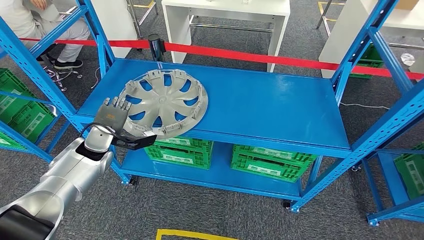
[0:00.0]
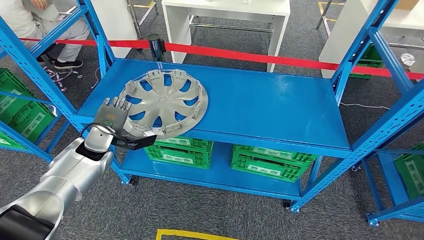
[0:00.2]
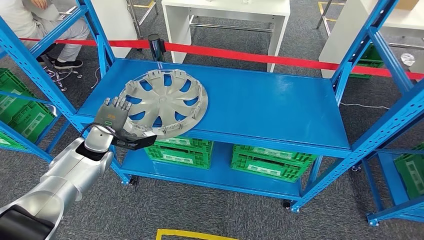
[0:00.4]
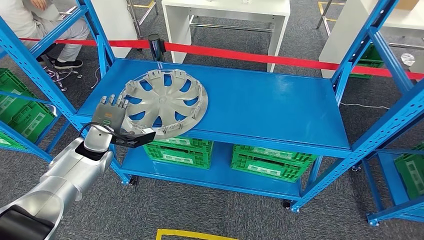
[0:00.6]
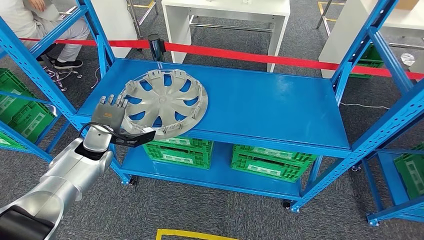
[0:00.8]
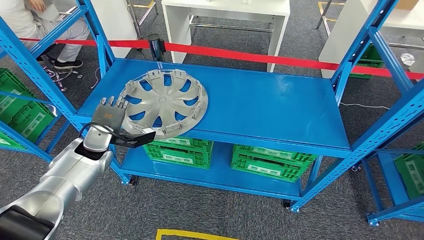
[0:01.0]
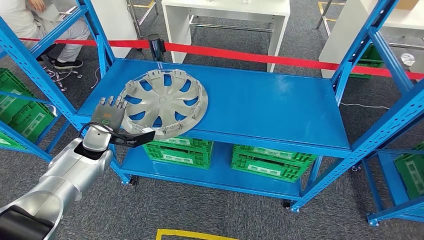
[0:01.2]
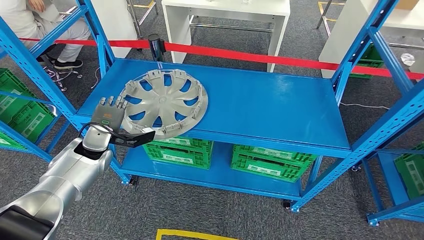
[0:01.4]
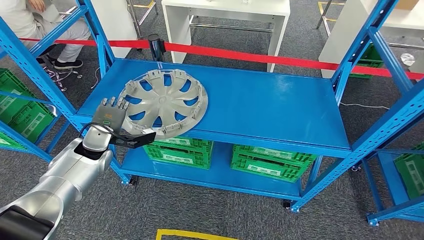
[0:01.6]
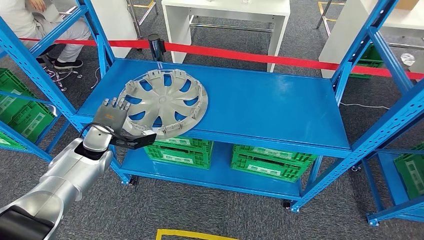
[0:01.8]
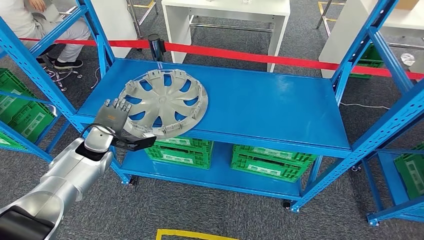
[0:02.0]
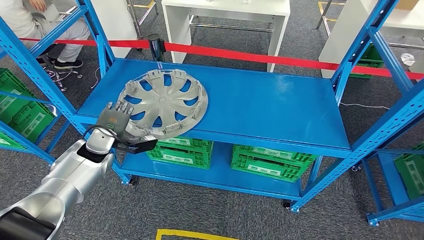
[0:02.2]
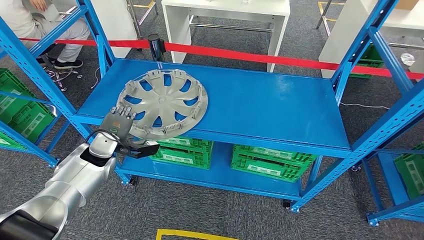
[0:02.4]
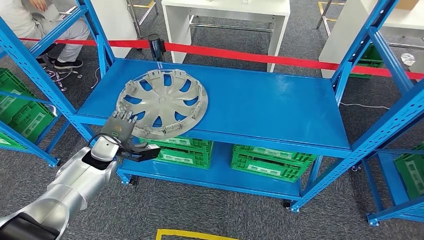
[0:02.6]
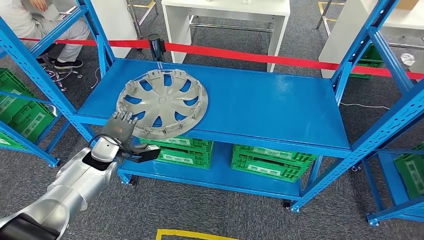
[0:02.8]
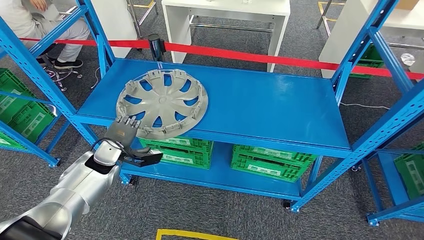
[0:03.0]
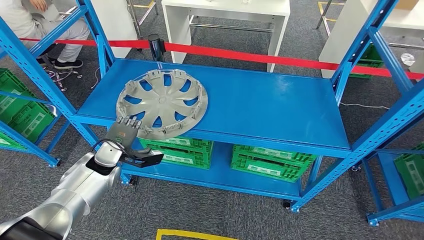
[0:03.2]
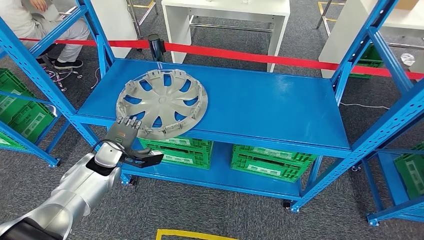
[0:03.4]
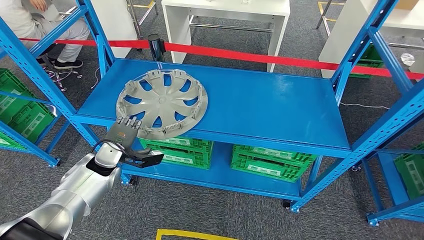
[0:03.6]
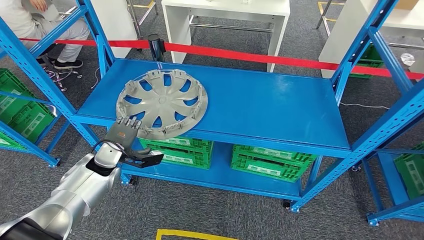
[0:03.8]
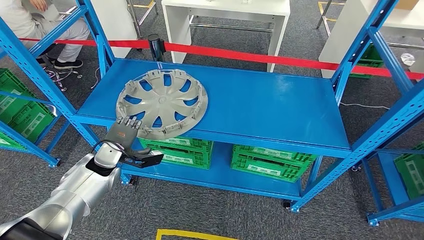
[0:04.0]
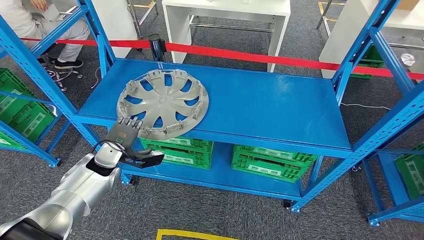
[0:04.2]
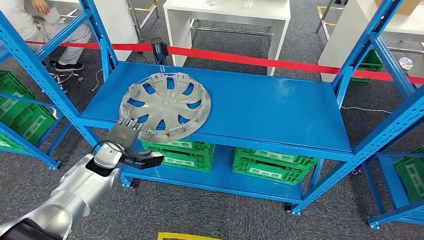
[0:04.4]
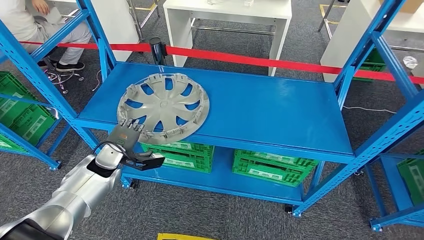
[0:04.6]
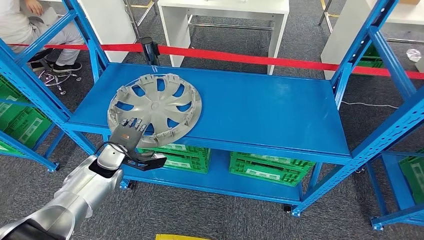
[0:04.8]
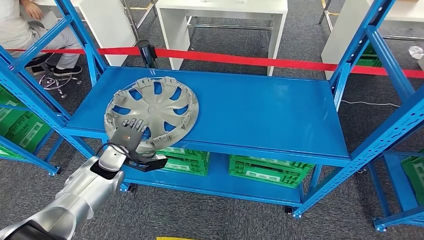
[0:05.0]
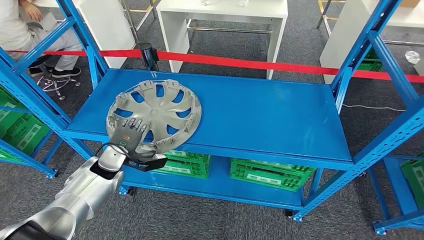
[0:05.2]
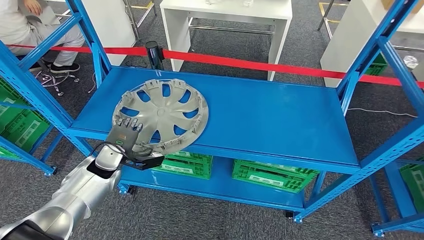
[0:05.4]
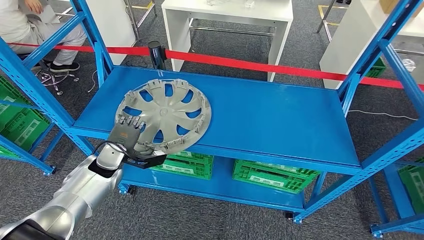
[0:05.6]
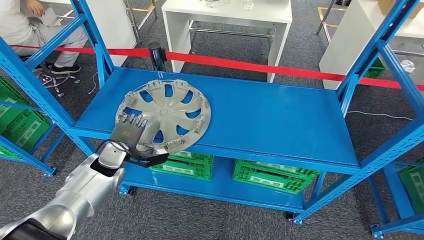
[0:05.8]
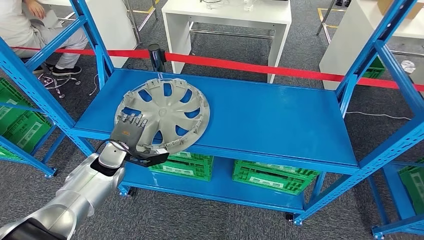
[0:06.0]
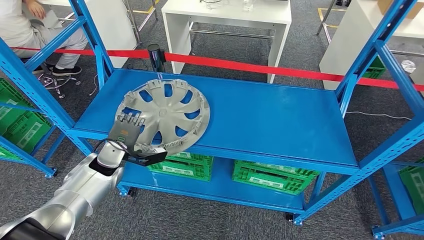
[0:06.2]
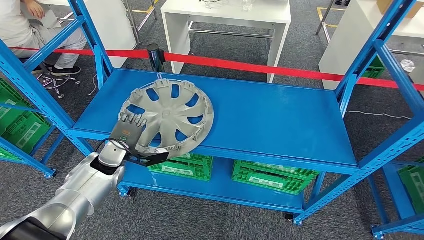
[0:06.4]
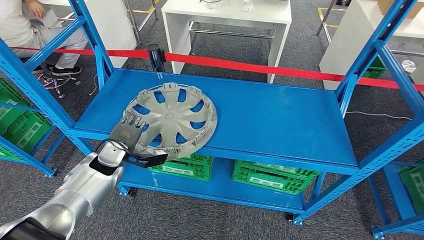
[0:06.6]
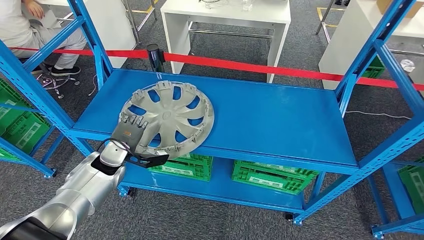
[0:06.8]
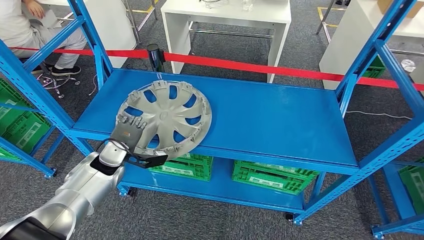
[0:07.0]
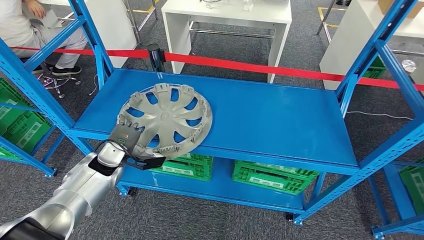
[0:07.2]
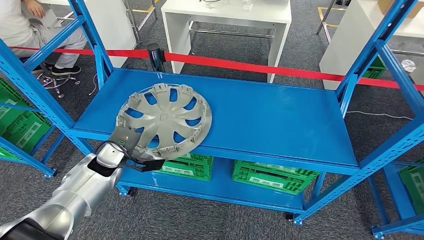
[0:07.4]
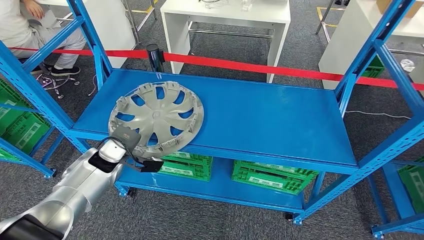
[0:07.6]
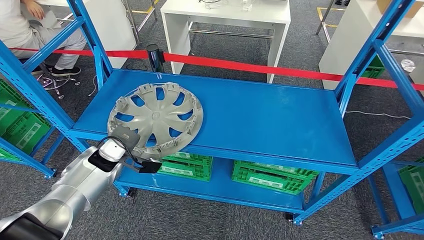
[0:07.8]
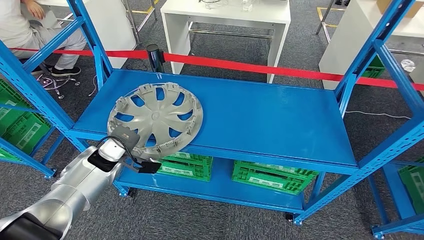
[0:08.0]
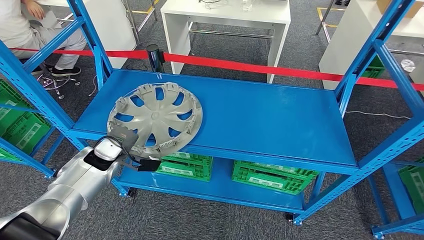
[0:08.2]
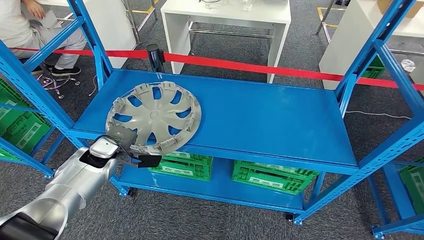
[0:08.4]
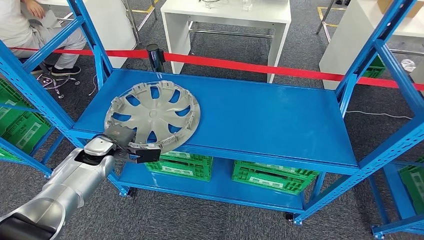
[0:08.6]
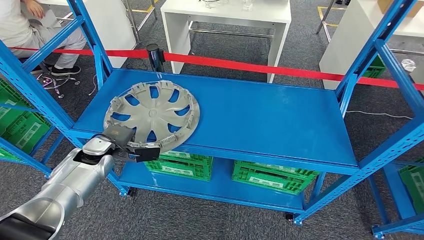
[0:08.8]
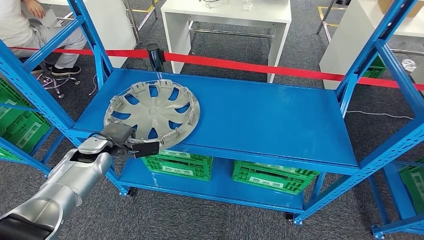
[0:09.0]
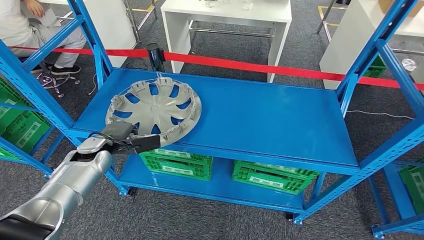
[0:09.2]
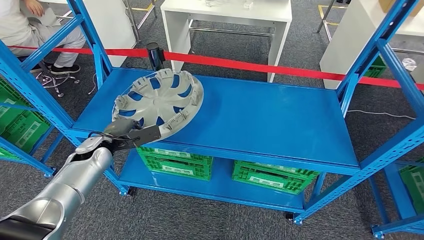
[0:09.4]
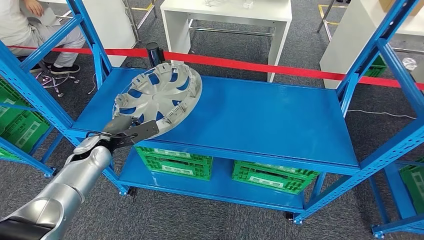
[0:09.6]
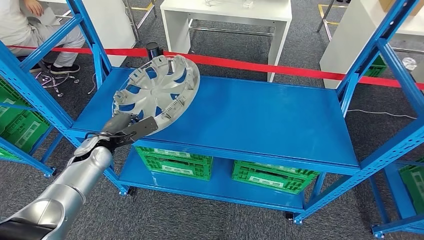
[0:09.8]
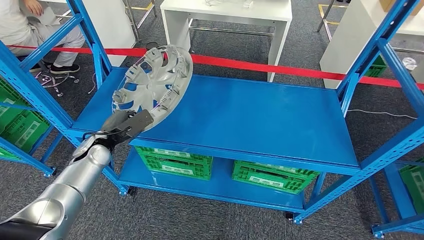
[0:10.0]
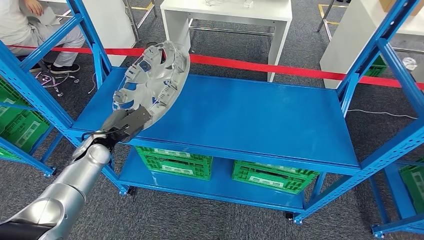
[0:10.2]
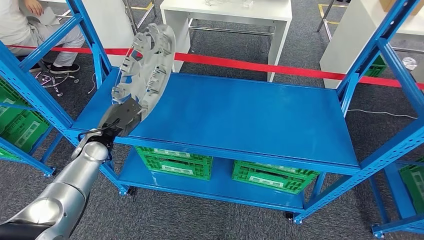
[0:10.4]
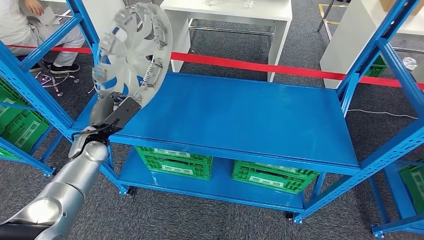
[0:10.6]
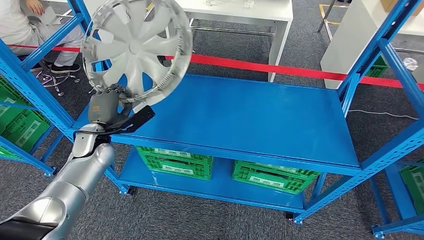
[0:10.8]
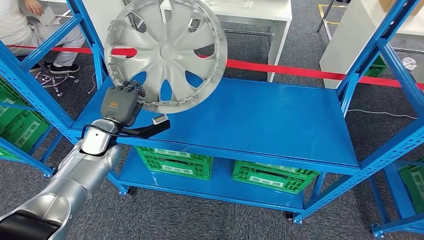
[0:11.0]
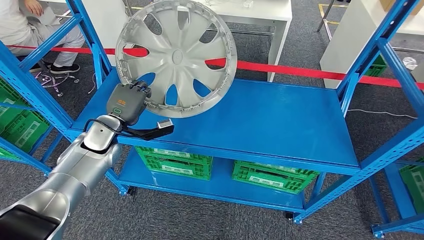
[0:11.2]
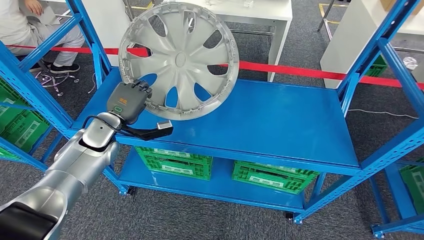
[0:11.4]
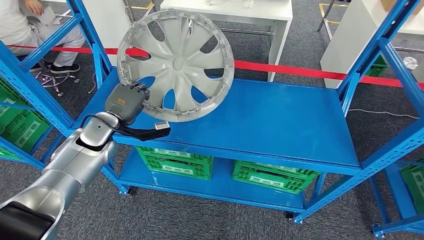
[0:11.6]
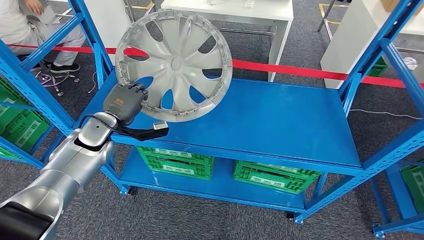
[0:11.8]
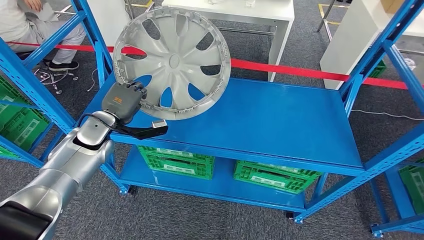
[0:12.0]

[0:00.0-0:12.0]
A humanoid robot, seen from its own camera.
0.0 to 1.6 s: The two hands keep their place.
1.6 to 3.0 s: The hands stay close to where they were, moving slightly.
6.0 to 7.6 s: The hands make only small movements.

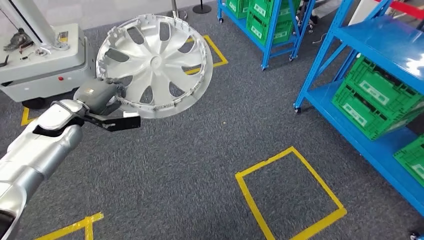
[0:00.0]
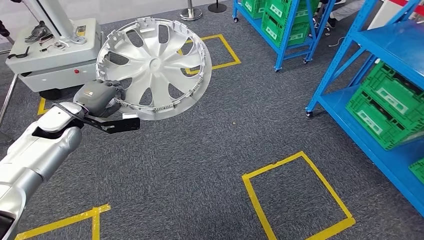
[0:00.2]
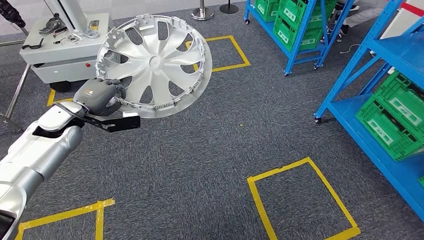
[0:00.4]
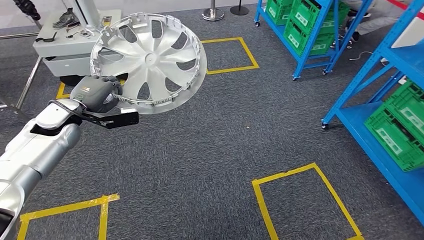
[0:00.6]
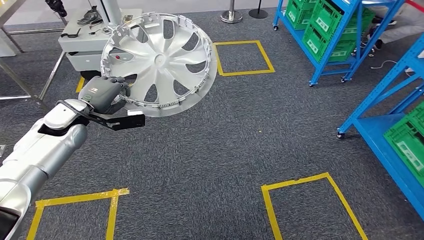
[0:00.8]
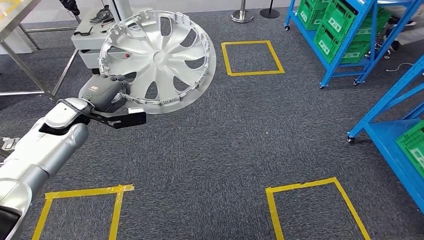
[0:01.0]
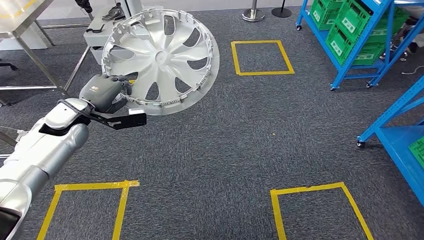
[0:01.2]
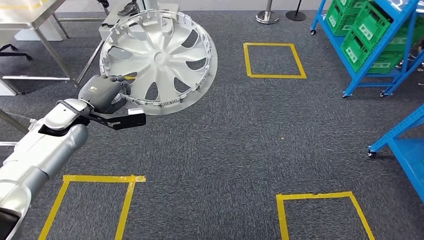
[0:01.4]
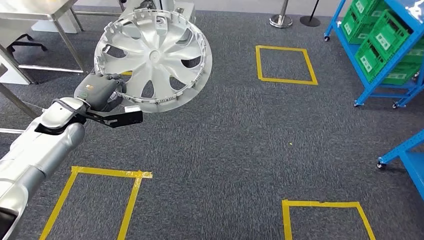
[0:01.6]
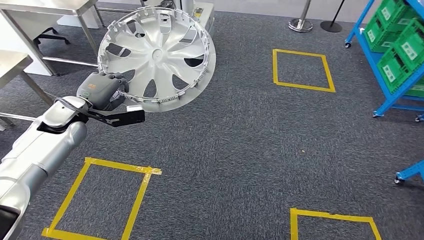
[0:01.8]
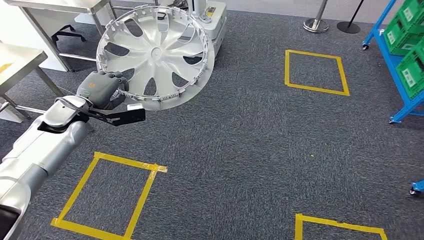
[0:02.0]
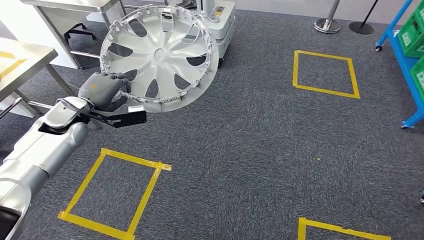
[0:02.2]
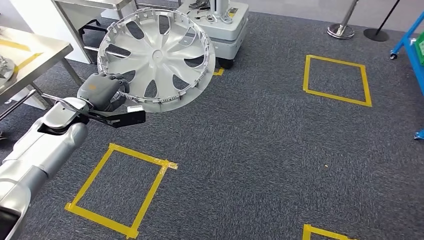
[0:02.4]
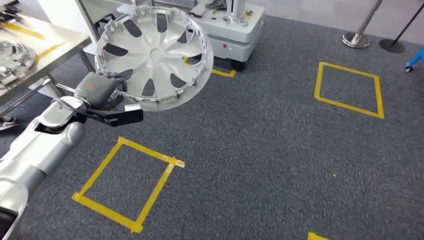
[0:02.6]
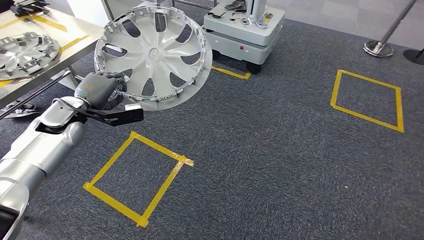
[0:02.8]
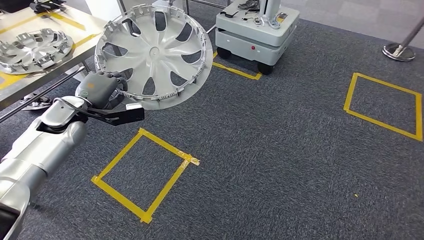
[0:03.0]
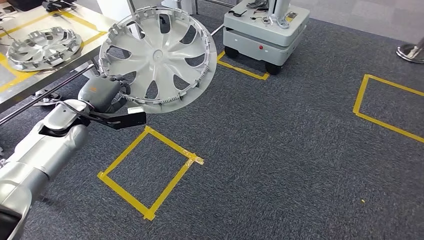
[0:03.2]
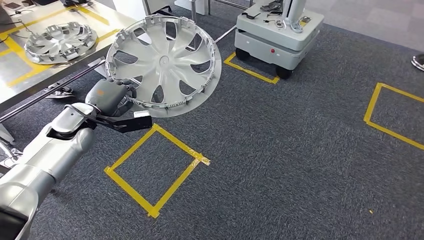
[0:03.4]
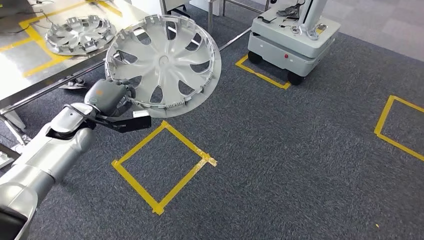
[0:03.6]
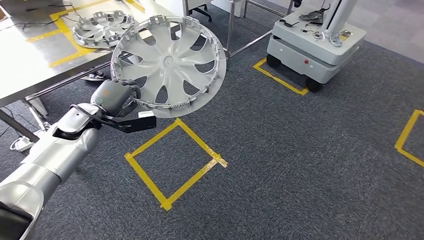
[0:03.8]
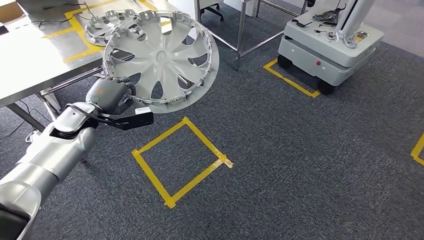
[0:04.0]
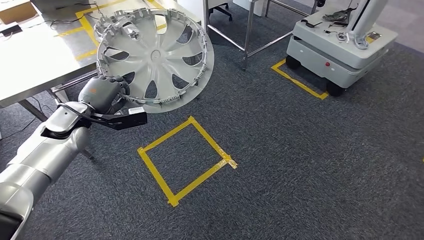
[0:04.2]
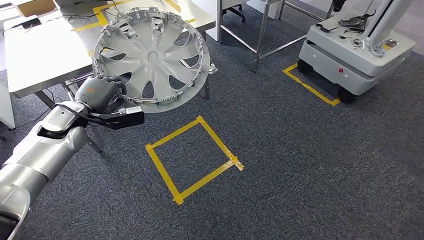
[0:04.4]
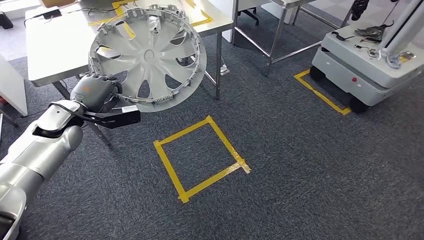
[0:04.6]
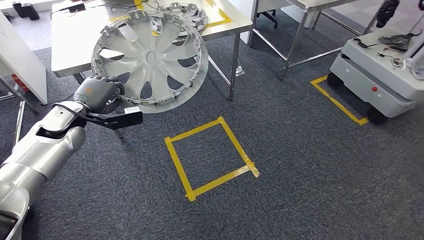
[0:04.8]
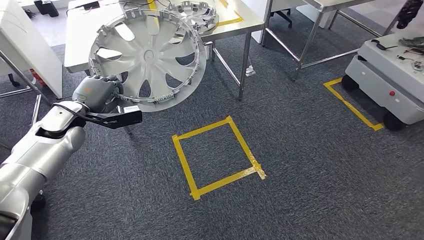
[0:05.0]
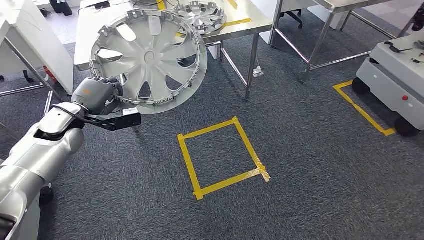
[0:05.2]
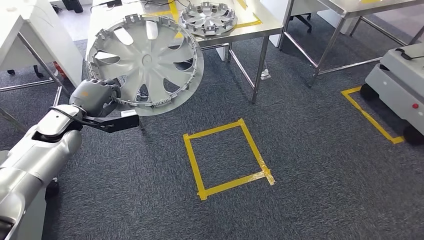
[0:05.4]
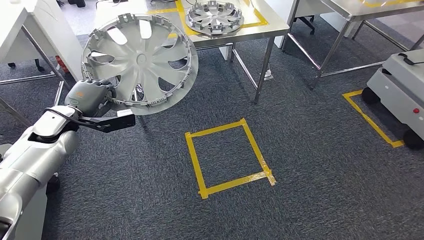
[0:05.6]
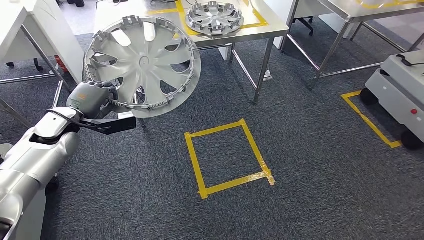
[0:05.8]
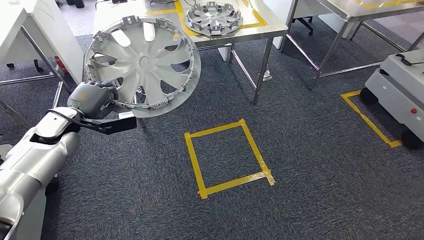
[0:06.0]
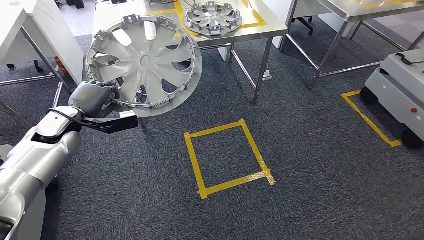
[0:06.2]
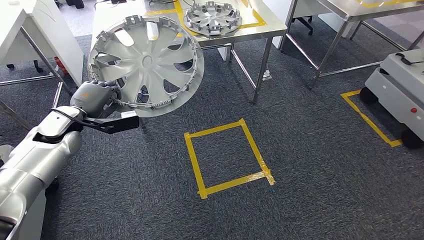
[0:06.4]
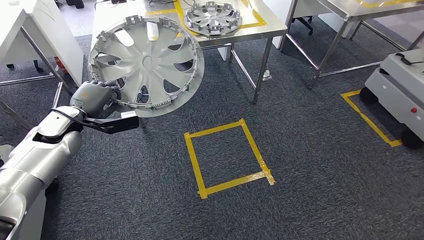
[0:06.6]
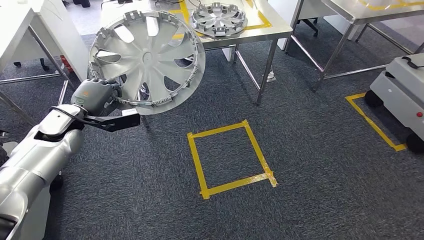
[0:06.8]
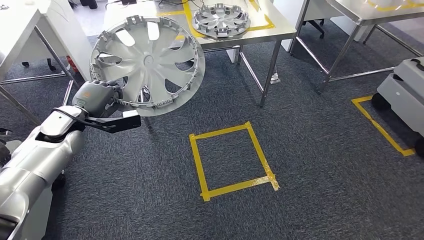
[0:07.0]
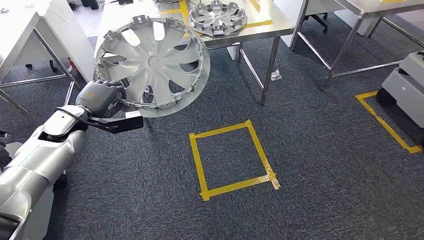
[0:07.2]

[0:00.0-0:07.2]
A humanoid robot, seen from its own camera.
Step, 0.0 to 6.4 s: Move the small component to the workbench.
